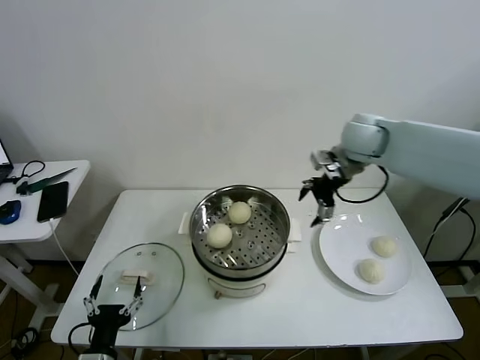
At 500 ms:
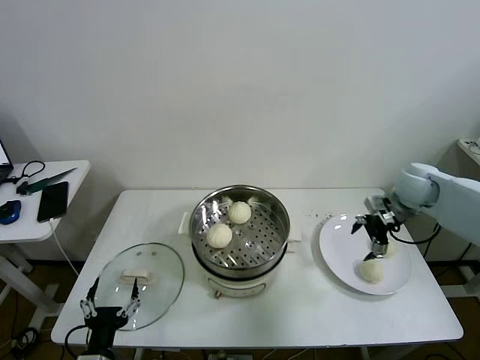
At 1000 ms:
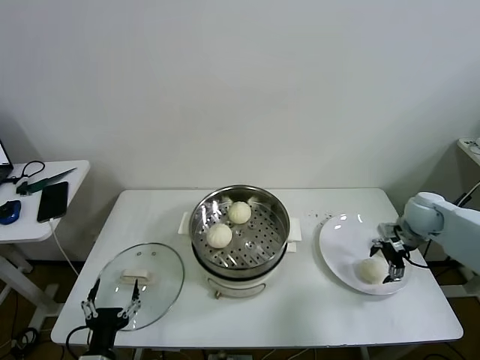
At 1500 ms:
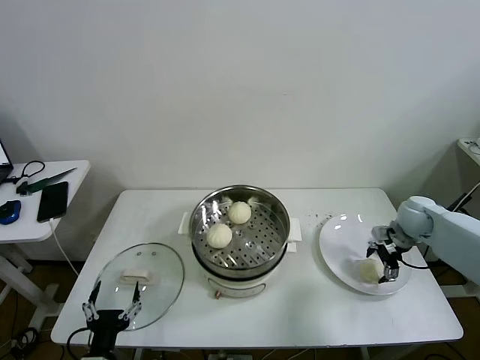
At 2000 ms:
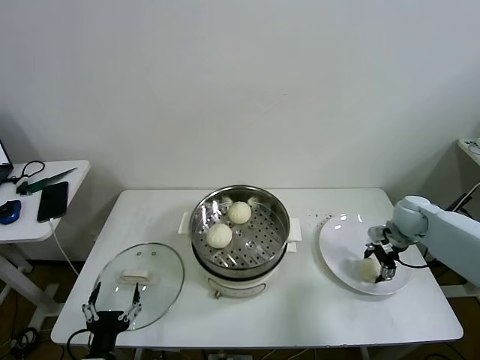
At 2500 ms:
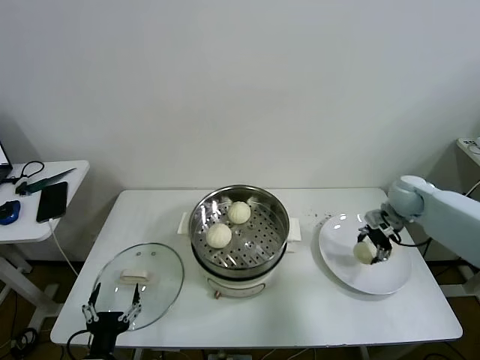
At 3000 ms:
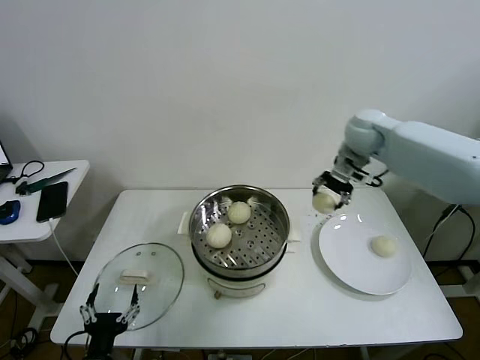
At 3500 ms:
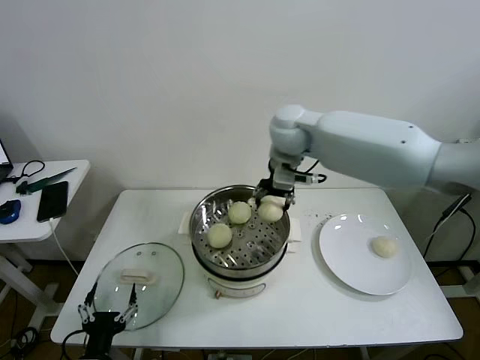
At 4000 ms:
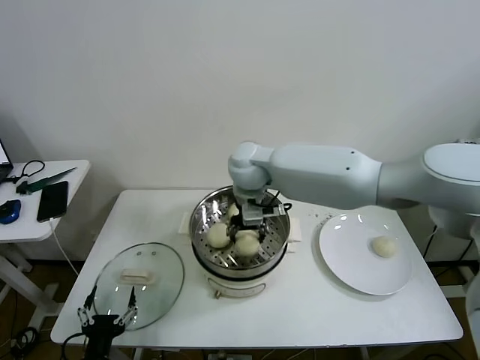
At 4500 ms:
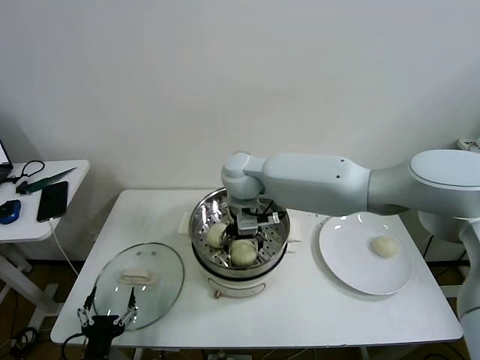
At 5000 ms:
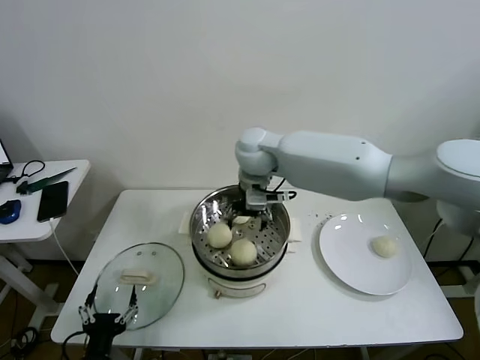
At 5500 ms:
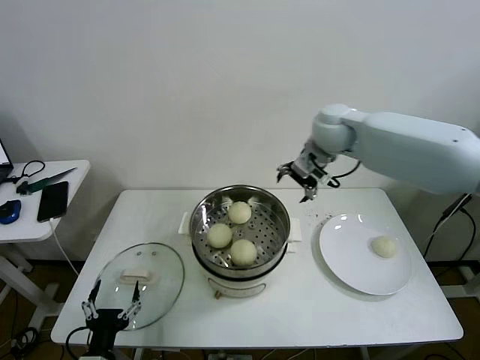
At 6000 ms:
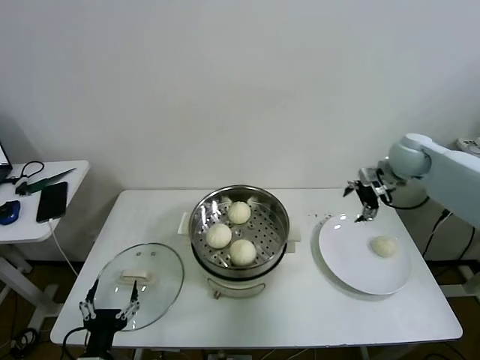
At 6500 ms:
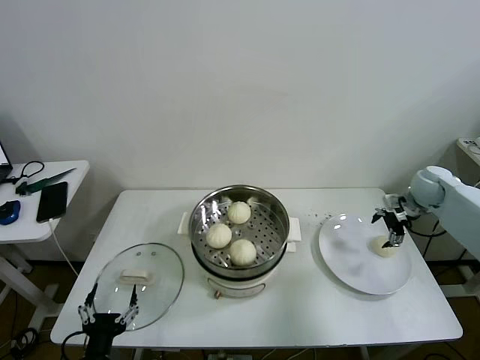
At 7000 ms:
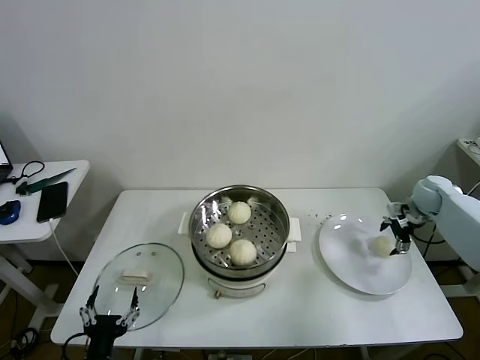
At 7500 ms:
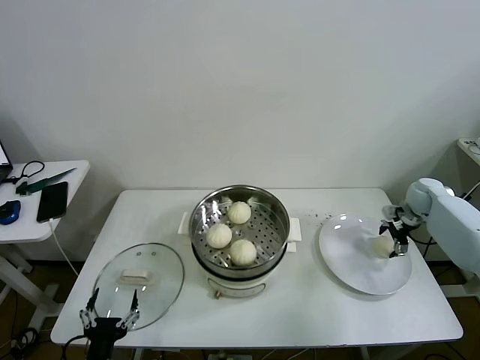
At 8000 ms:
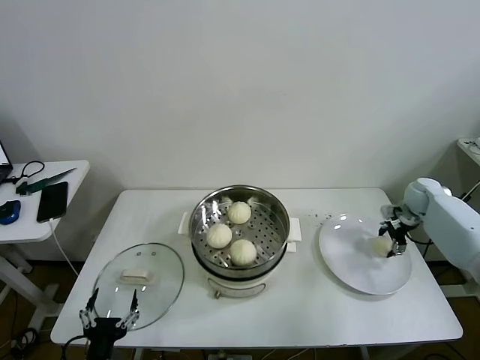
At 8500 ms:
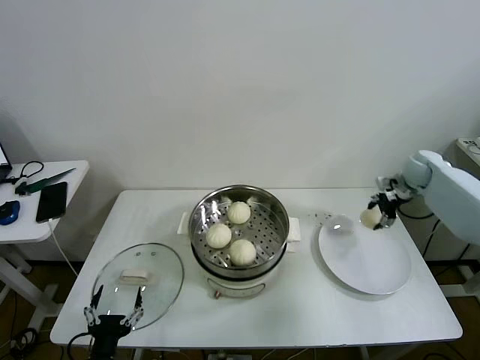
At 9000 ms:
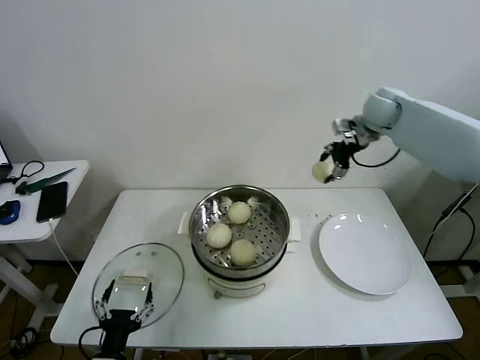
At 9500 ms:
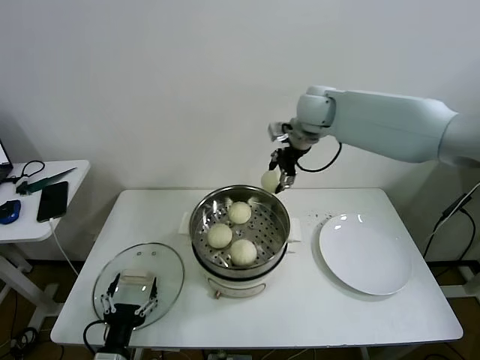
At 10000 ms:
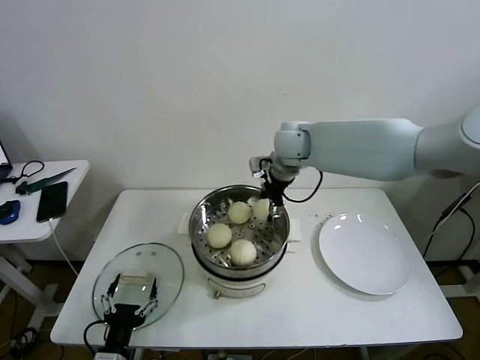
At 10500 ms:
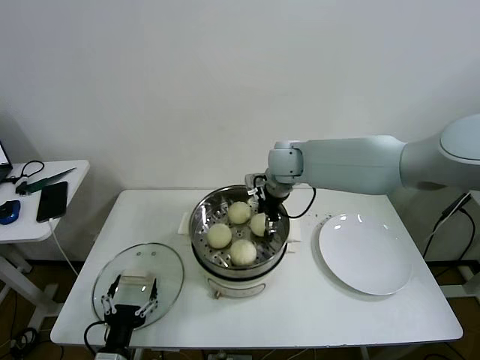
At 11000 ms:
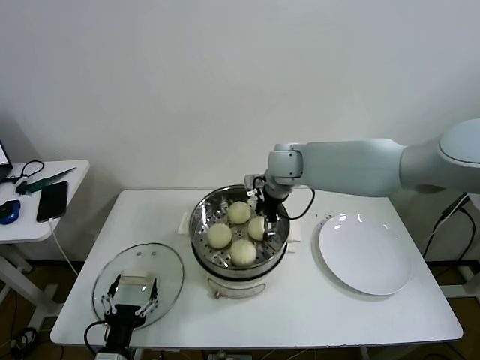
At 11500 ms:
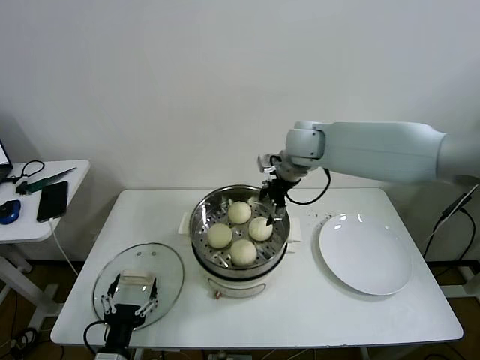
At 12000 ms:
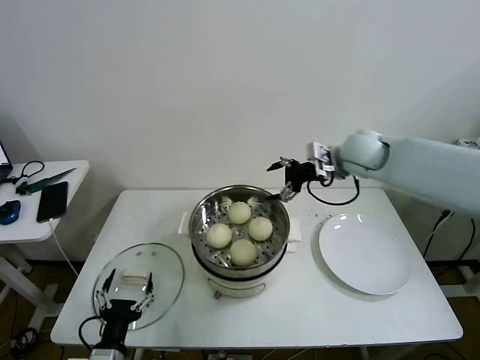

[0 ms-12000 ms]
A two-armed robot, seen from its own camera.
Task of the whole recording: take steamed baozi put them in steamer then cover it.
Step, 0 ms to 2000 ms: Grasp the baozi in the plate with right gripper.
Step, 2500 ms to 4500 ms: Place the baozi on the steamer with right gripper.
Step, 5000 ms to 7500 ms: Grasp the baozi in the plate with right gripper.
Step, 8500 ms to 11000 ms: Place the baozi on the steamer with right gripper.
0 ms to 2000 ms: The right gripper is displaced downward and to the right by about 25 cm, and closes.
2000 ms to 4000 ms: The right gripper moves to the left, some 40 cm.
4000 ms to 6000 ms: The right gripper heads to the right, covering some 35 cm, and opens.
6000 ms to 8000 ms: The right gripper shifts roughly 20 cm downward and to the right, and closes up.
8000 ms to 10000 ms: The right gripper shifts approximately 40 cm to the left and upward.
10000 ms to 12000 ms: The right gripper travels to the right by about 15 cm, and opens its fingers.

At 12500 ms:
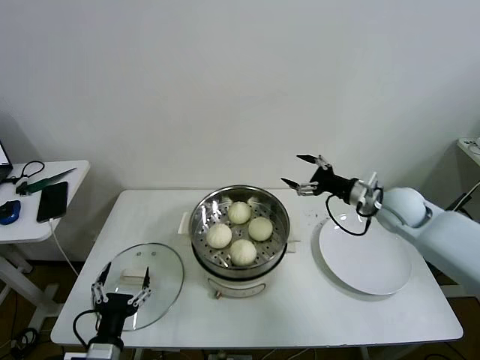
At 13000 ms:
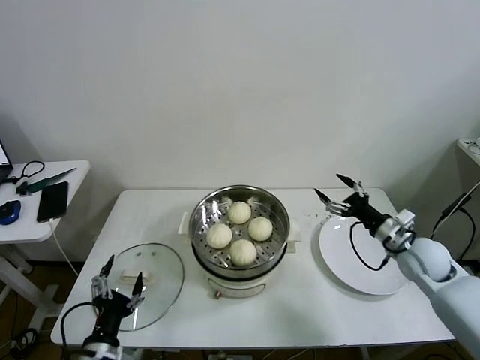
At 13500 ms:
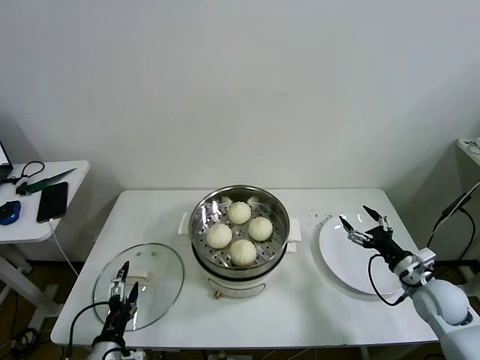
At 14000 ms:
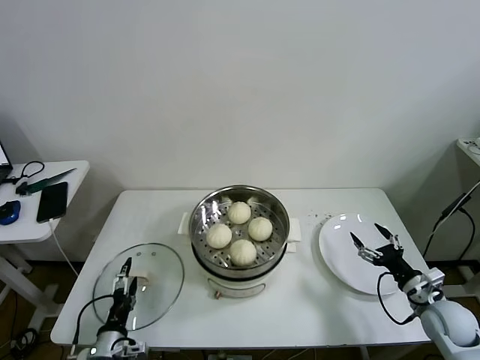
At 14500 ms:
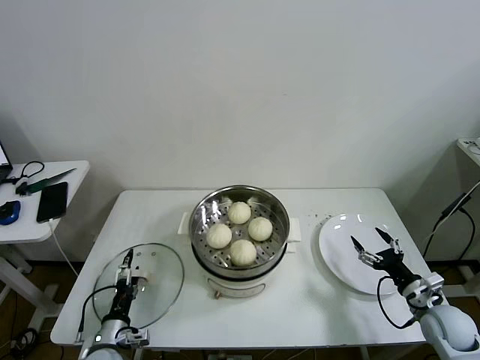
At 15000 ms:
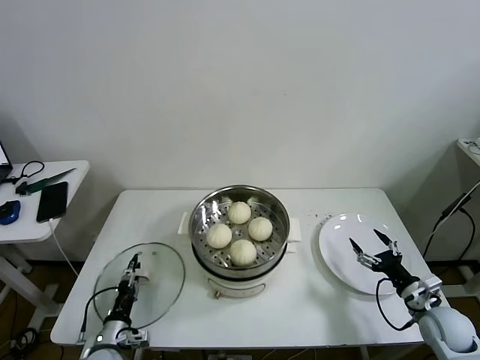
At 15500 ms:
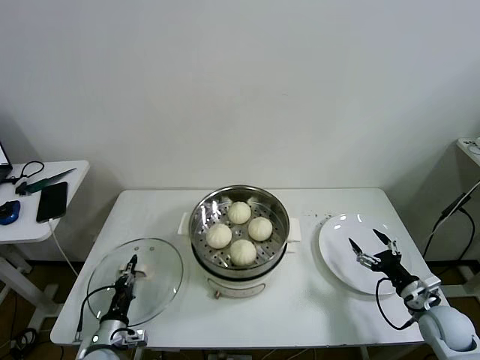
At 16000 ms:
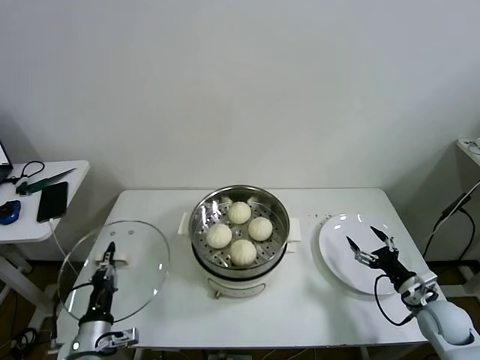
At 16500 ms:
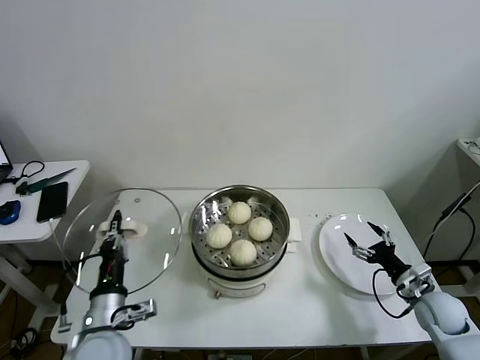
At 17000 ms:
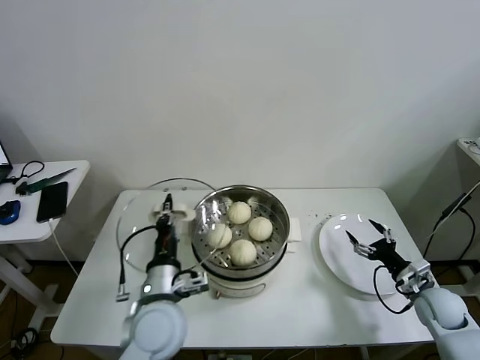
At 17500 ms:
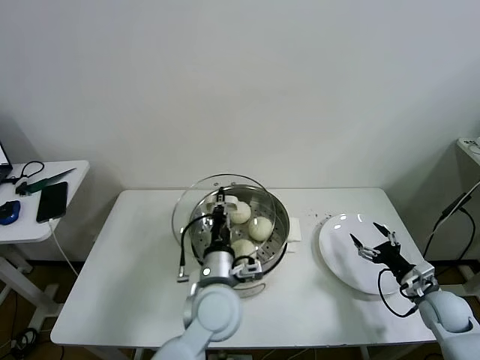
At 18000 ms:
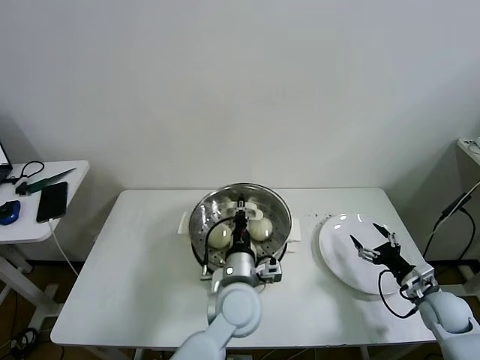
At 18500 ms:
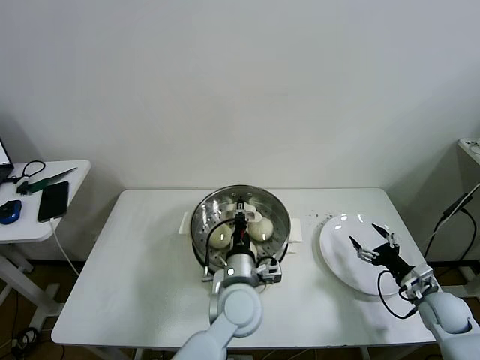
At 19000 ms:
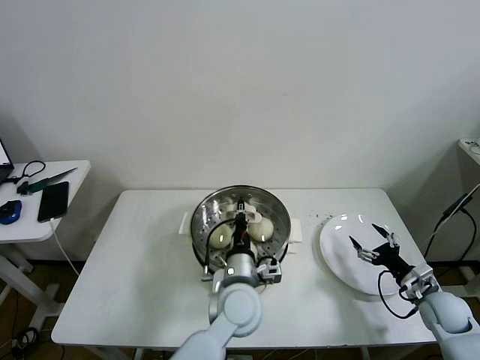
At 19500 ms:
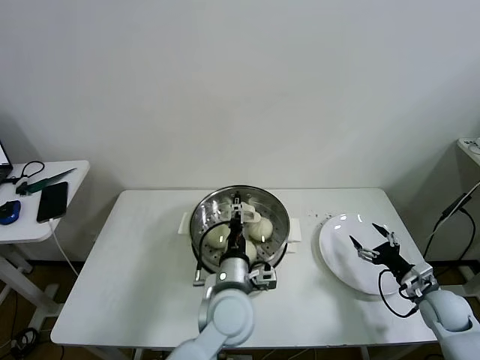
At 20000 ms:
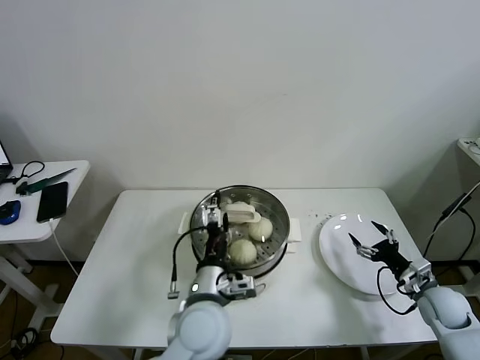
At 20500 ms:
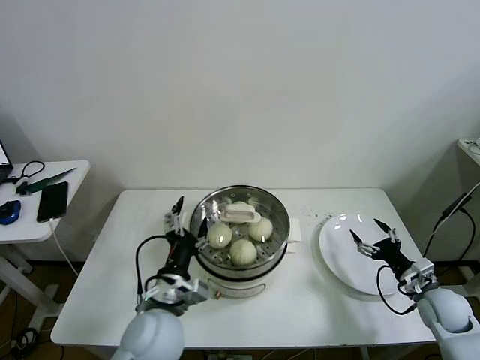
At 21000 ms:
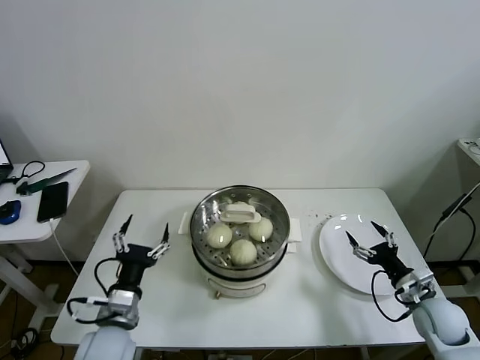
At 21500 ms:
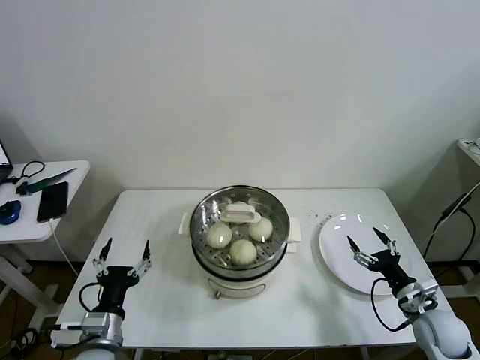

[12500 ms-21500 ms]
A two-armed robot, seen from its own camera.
Task of the whole recording: take steamed baozi put them in steamer then cover it.
Step, 12500 ms to 15000 ms: Grasp the pot lid with left gripper.
Step, 15500 ms to 19000 ms: Place the pot lid on the steamer with left gripper.
12500 ms to 14500 ms: The left gripper goes about 15 cm downward and forward. Meanwhile the right gripper heads downward, backward and to the right, covering some 30 cm.
14500 ms to 17000 ms: The left gripper heads upward and to the right, covering about 25 cm, and closes up.
17000 ms to 19500 ms: The left gripper shifts some 15 cm to the right, and opens up.
19500 ms to 21500 ms: The right gripper moves some 5 cm, while the left gripper moves to the left, approximately 25 cm, and opens.

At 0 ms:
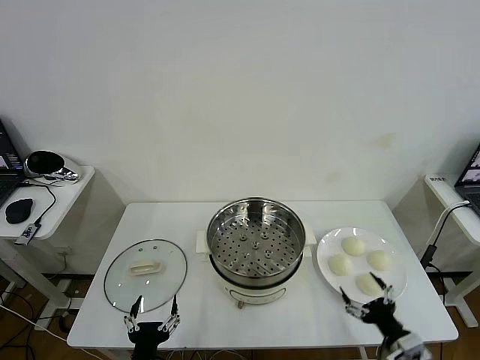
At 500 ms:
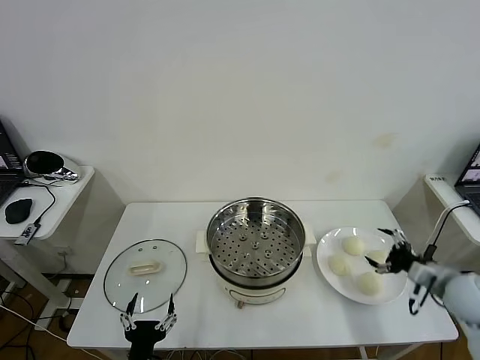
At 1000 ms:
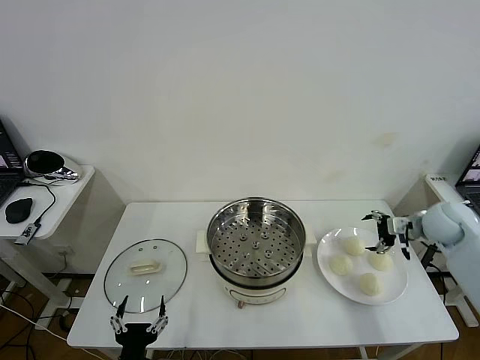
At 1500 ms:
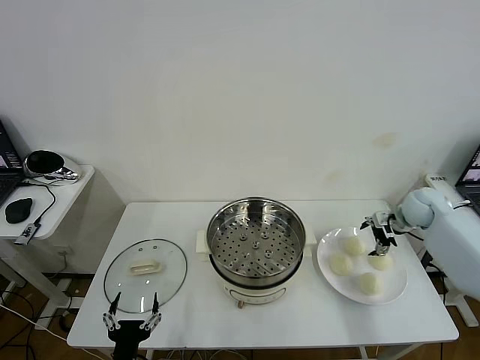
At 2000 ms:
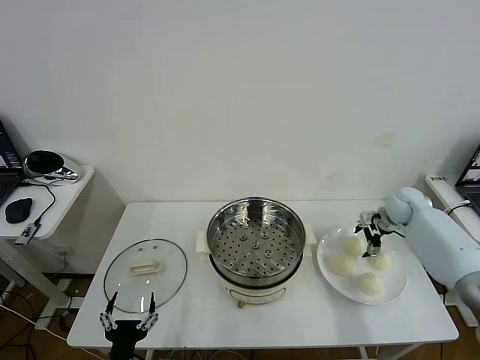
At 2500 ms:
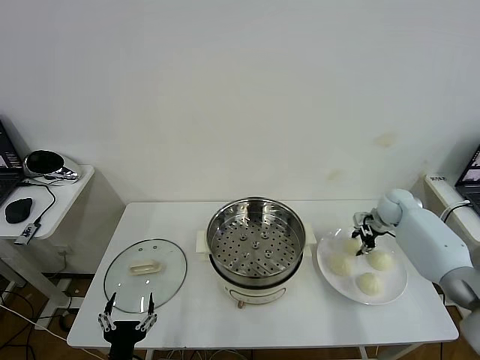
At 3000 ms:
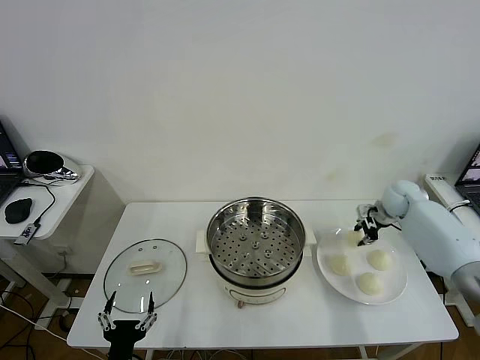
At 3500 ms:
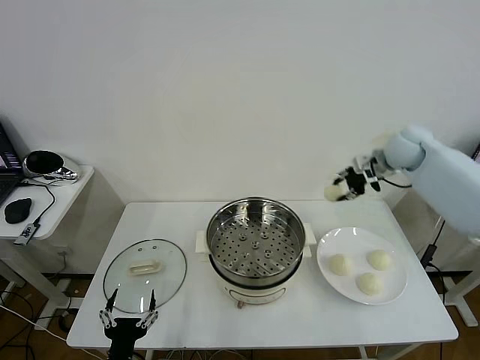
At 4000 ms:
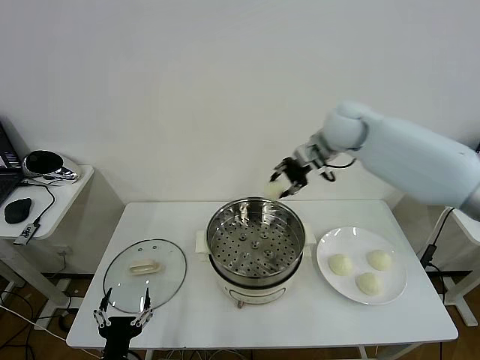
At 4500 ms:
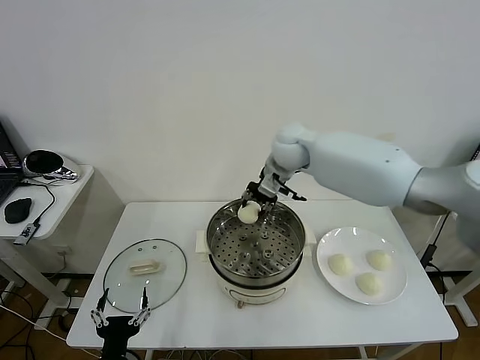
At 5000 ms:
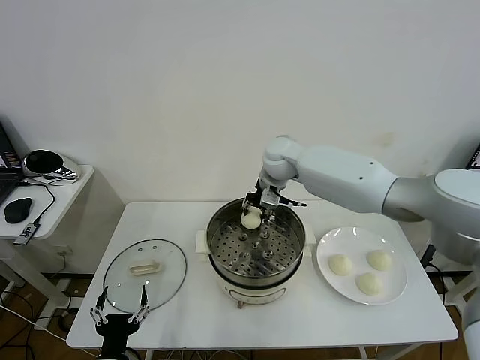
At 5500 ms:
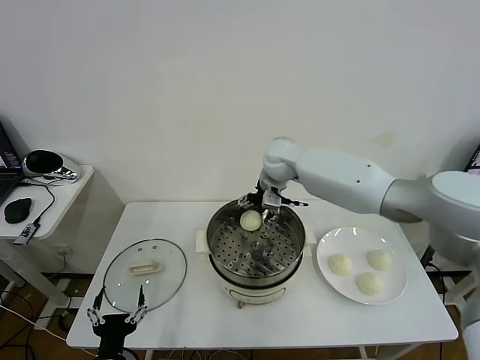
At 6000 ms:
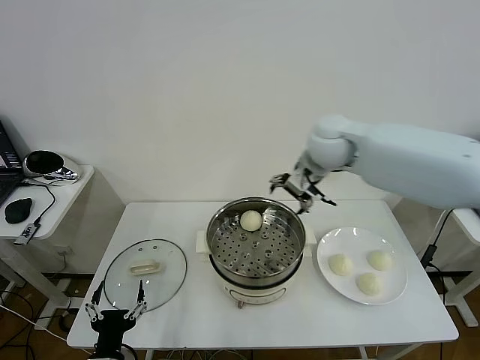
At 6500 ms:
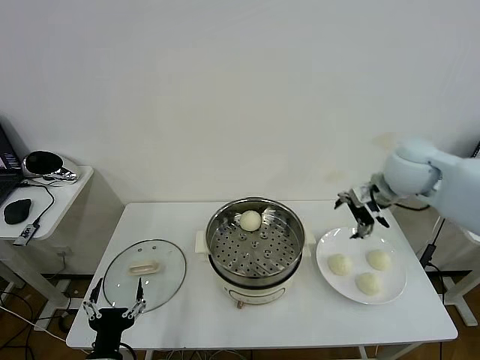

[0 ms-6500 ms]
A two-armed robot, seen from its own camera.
Task of the whole recording: take steamed baozi put them in steamer then cover it.
Step, 0 ms to 2500 ms: Grasp the baozi in the plate with right gripper.
Step, 3000 ms to 5500 ms: Place the baozi on the steamer with right gripper.
2000 ms to 4500 ms: The right gripper moves to the left and upward, some 35 cm, and closes.
4500 ms to 6500 ms: The right gripper moves to the right and backward, about 25 cm, and opens up.
